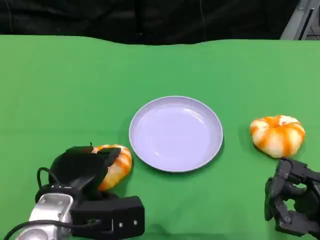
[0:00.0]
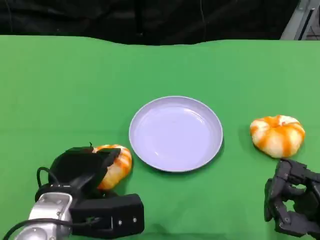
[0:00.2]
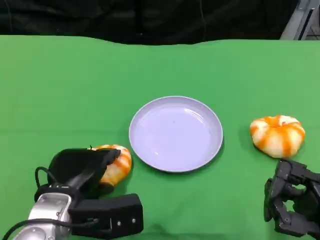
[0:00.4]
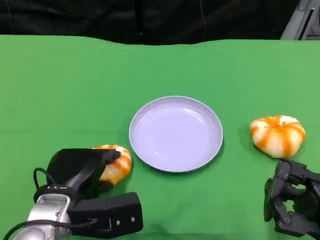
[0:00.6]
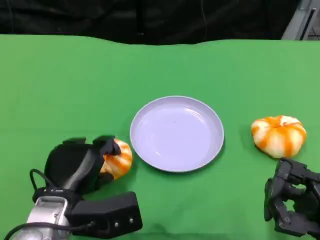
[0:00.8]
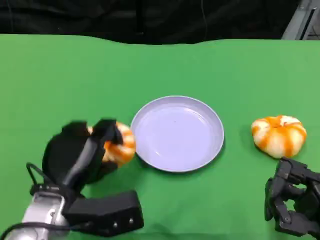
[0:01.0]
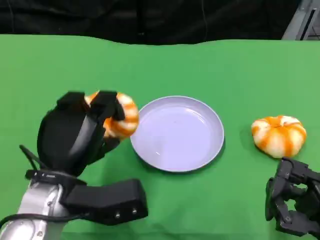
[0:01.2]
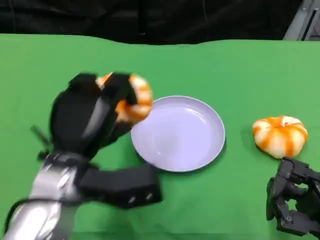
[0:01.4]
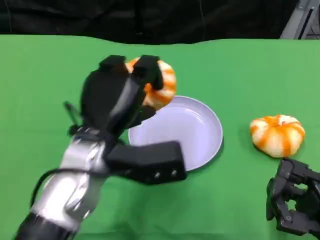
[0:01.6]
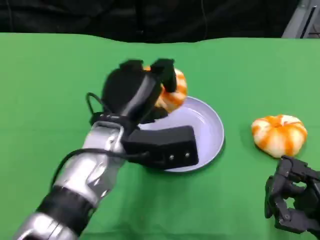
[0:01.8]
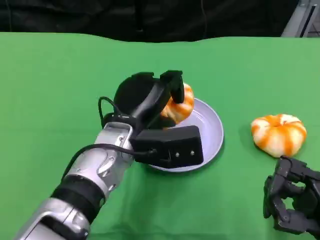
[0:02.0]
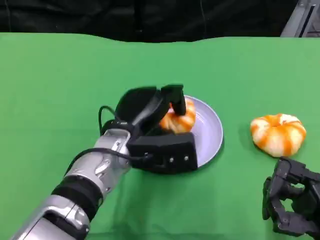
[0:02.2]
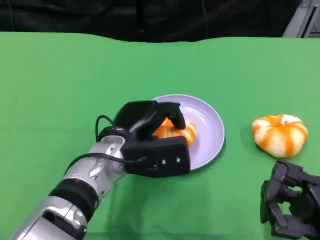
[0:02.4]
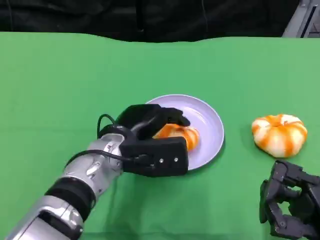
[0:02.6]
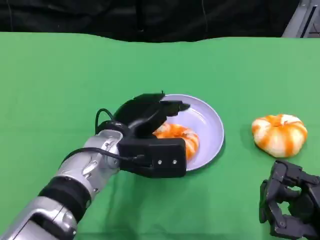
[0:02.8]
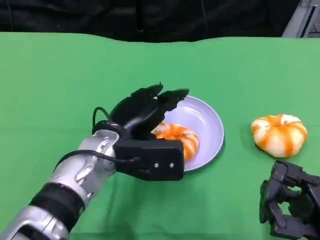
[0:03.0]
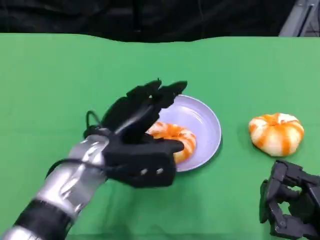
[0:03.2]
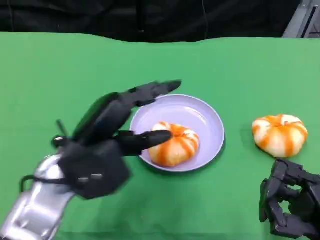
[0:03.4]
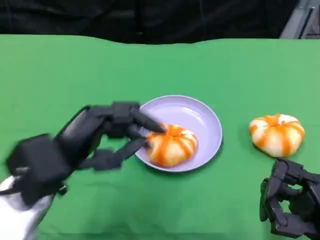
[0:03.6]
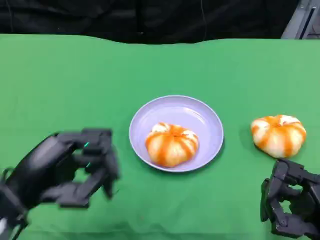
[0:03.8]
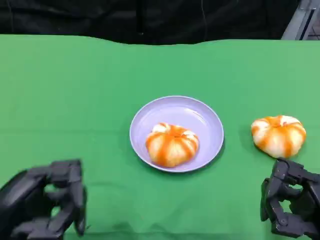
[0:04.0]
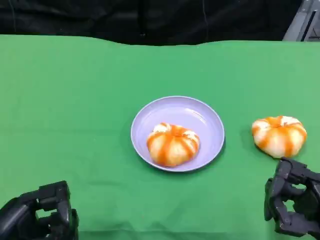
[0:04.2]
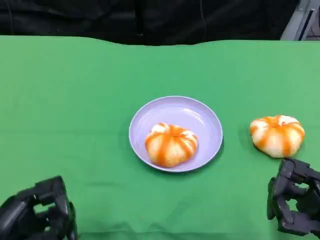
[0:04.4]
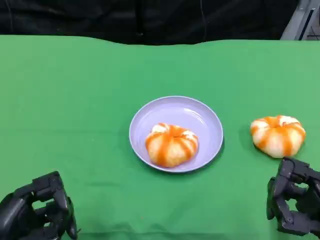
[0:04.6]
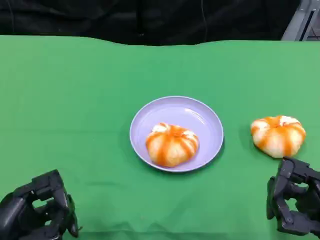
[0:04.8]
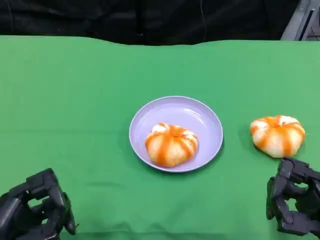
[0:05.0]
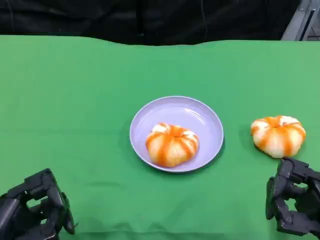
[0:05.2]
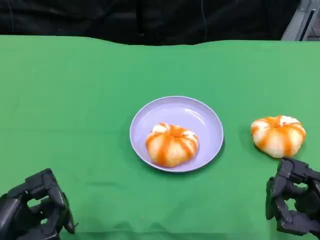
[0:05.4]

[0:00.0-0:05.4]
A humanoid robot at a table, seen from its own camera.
Task of the whole recording: Grasp the bread from the table and place it into the plate.
0:00.0 to 0:01.4: The left hand goes roughly 10 cm upward.
0:01.4 to 0:02.8: The left hand is displaced forward by roughly 5 cm.
0:02.8 to 0:04.0: The left hand goes approximately 25 cm to the left and backward.
0:04.0 to 0:05.4: The hands stay close to where they were, moving slightly.

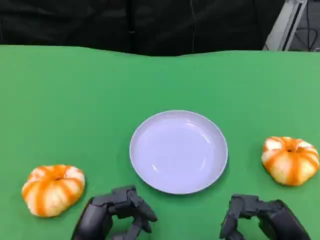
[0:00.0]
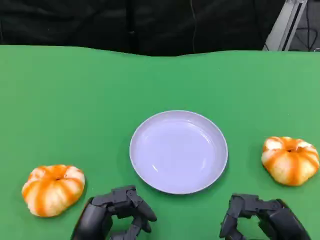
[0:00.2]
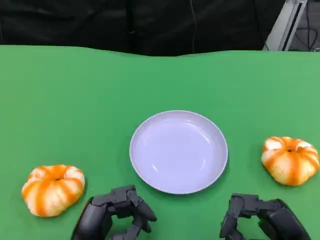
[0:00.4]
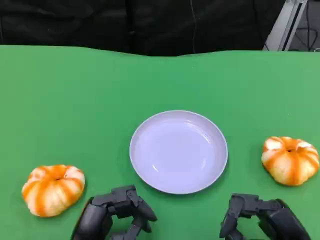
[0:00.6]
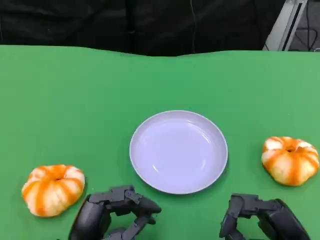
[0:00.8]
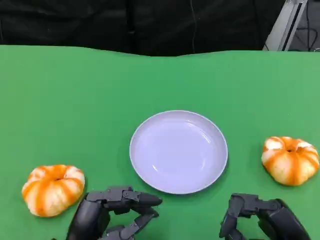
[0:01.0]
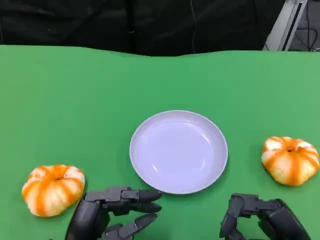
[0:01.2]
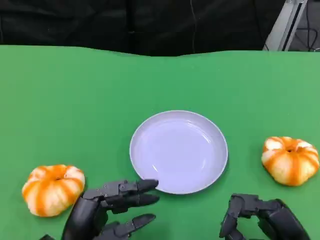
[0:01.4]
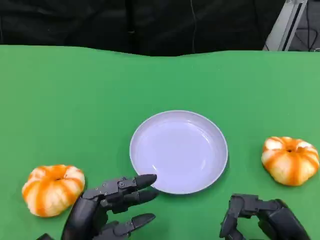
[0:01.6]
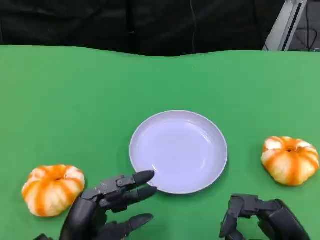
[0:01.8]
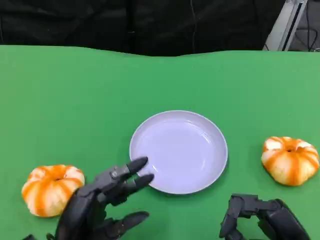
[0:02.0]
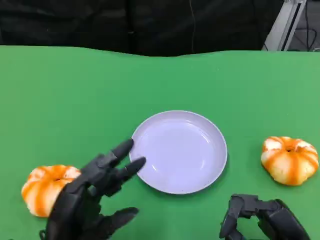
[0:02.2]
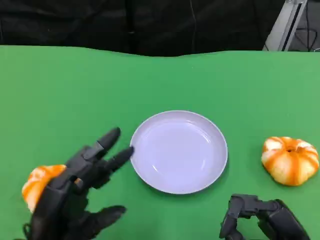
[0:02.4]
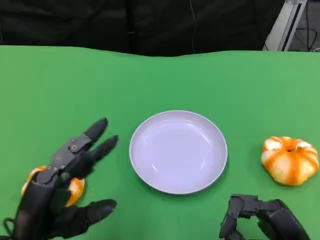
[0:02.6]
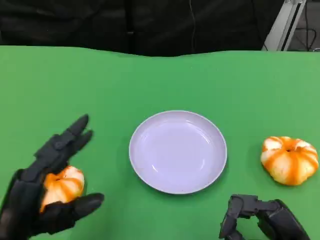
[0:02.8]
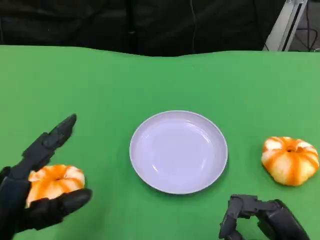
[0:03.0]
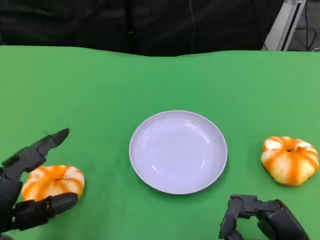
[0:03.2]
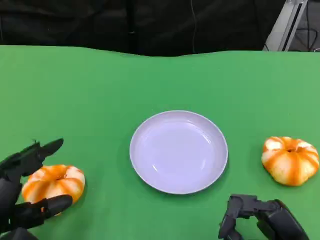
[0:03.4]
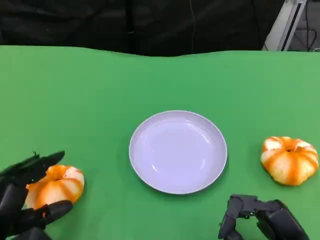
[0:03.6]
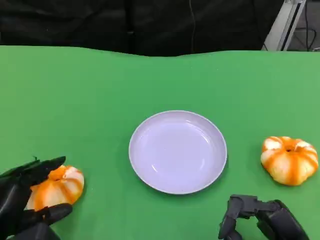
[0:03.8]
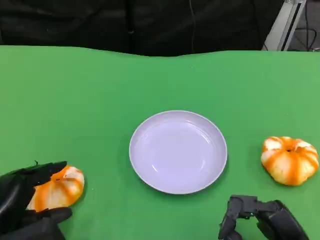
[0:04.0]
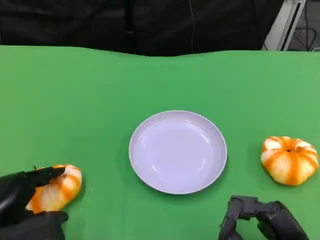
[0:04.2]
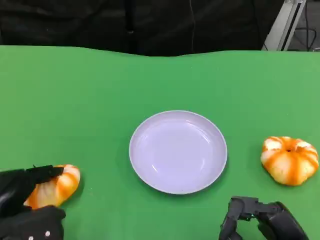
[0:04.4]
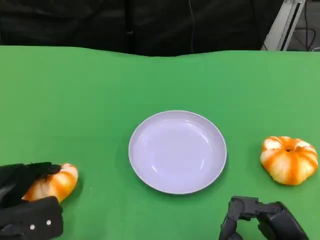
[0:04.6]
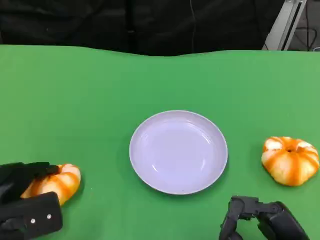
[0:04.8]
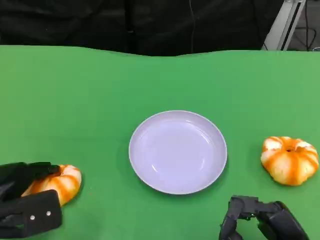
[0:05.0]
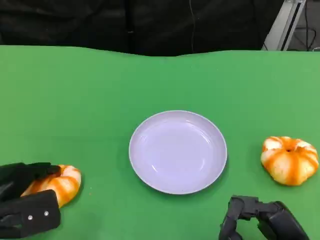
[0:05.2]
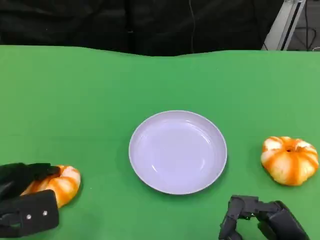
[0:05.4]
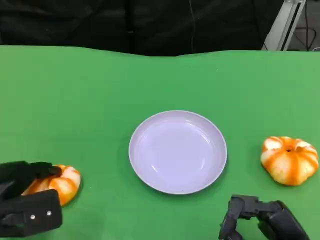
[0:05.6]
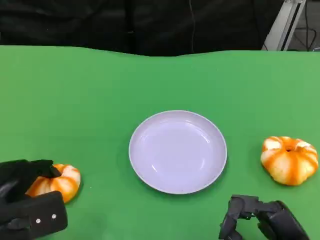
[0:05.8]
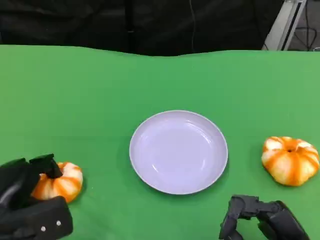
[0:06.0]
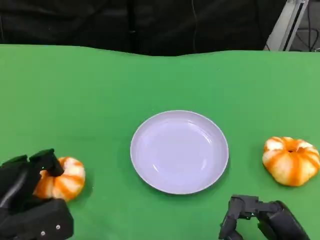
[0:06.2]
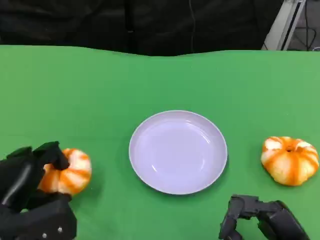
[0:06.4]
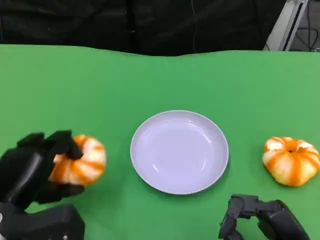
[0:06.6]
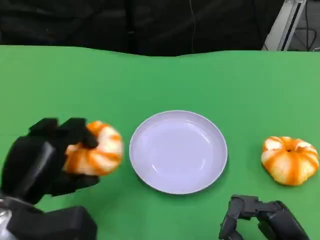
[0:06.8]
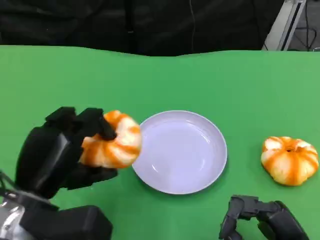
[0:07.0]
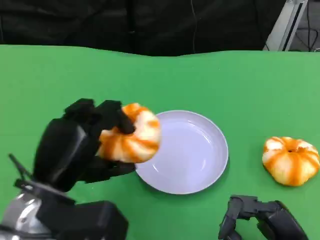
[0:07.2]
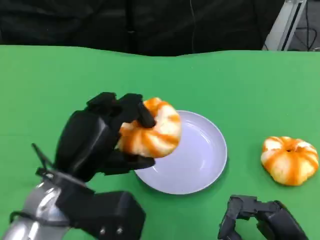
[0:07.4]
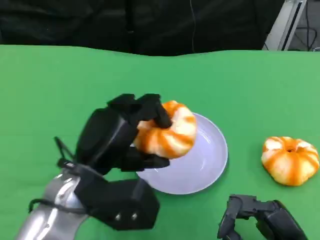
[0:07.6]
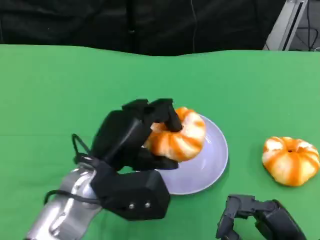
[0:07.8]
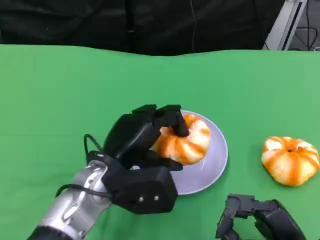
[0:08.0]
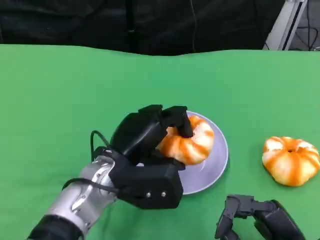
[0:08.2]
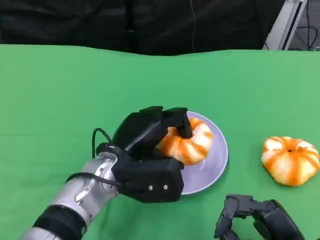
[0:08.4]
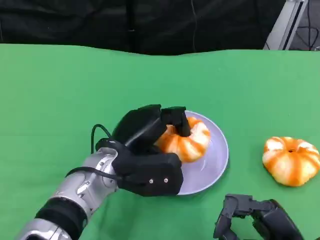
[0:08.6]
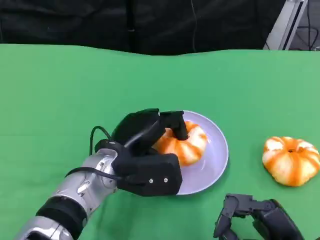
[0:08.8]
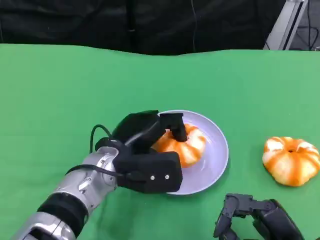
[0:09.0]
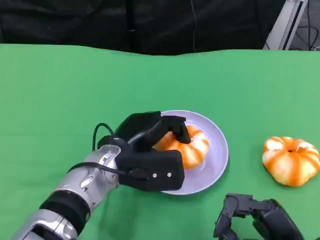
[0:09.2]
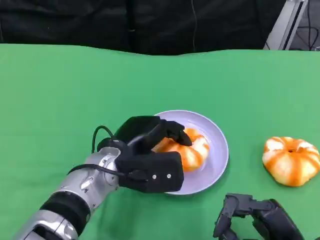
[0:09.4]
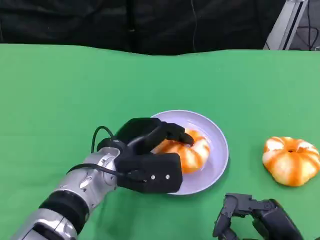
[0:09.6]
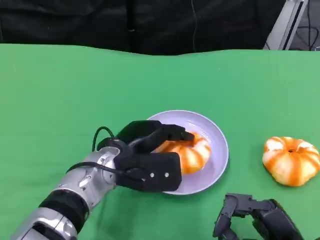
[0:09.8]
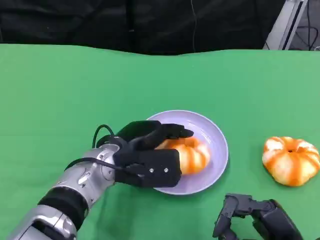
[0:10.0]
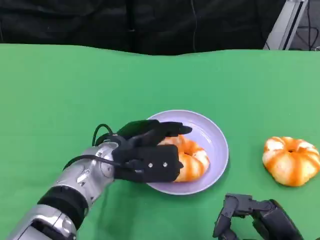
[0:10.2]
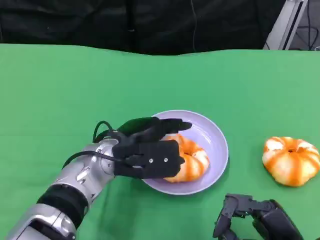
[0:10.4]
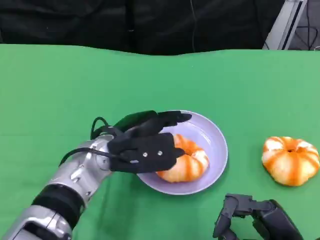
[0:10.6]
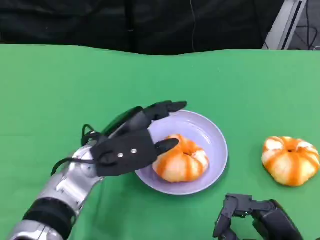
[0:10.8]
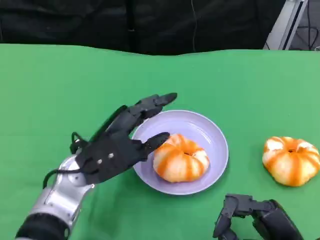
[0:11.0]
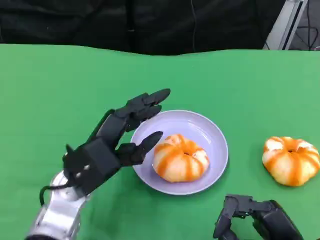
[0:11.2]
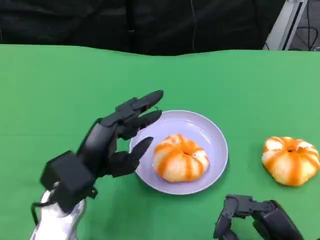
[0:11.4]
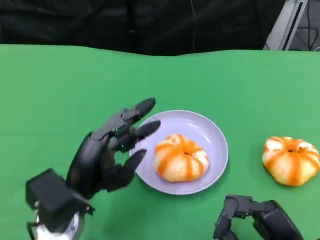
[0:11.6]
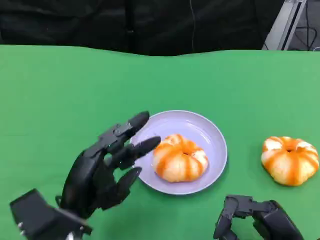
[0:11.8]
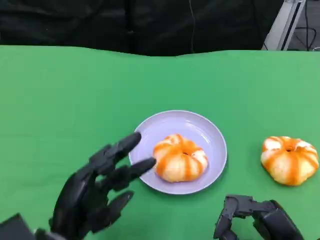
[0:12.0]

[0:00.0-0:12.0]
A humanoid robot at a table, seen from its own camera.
Task of the whole recording: Grasp the bread from the table and place it into the plate.
0:00.0 to 0:01.6: The hands stay close to where they were, moving slightly.
0:01.6 to 0:03.0: The left hand travels to the left and upward by about 10 cm.
0:03.0 to 0:04.4: The left hand shifts by approximately 5 cm.
0:04.4 to 0:06.0: There are only small adjustments of the hands.
0:06.0 to 0:07.6: The left hand shifts approximately 15 cm to the right and upward.
0:07.6 to 0:09.0: The left hand shifts some 5 cm forward.
0:09.0 to 0:10.4: The hands make only small movements.
0:10.4 to 0:12.0: The left hand goes about 15 cm backward and to the left.

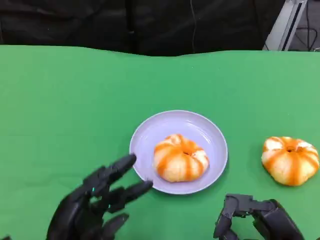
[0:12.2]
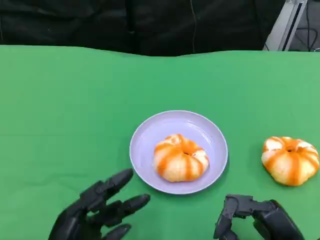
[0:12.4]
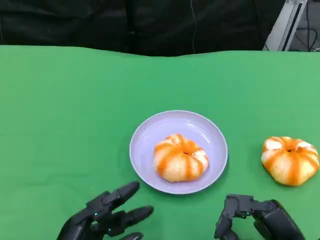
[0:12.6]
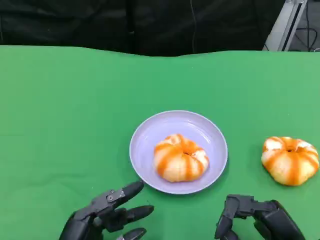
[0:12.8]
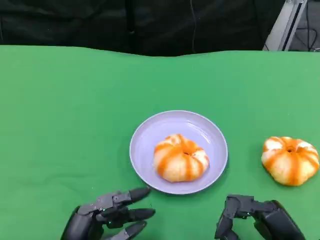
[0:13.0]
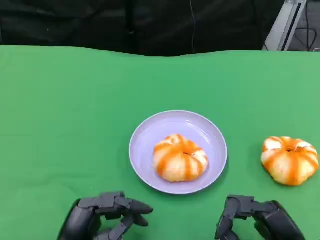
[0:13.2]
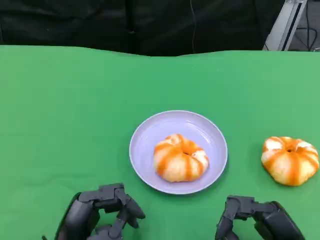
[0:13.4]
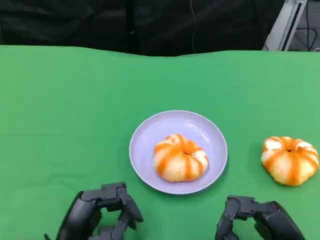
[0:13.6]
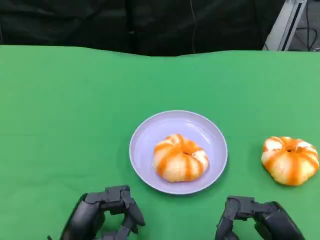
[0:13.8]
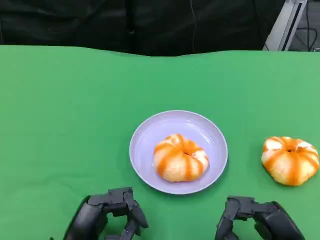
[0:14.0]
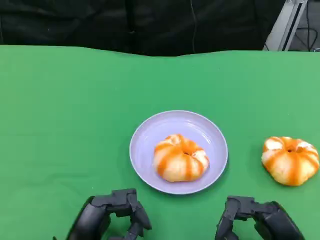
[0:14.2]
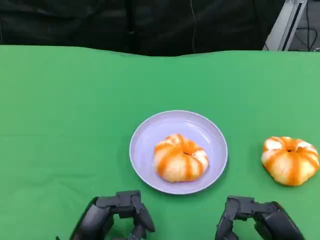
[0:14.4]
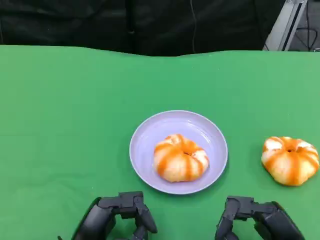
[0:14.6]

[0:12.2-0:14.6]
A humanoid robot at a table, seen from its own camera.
Task of the whole recording: Grasp the bread from the table and place it into the plate.
0:12.2 to 0:14.6: The hands stay close to where they were, moving slightly.

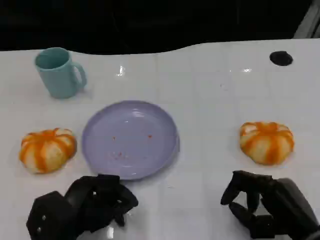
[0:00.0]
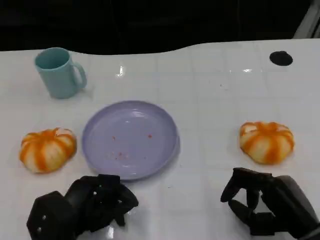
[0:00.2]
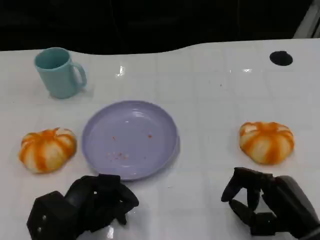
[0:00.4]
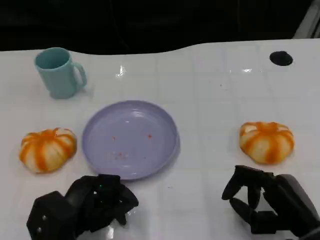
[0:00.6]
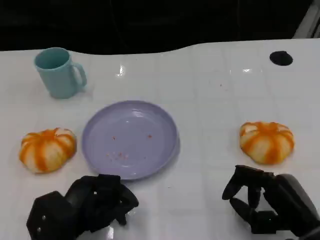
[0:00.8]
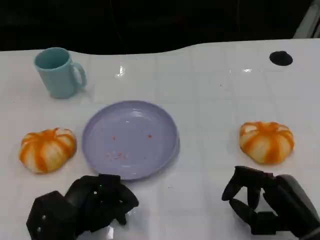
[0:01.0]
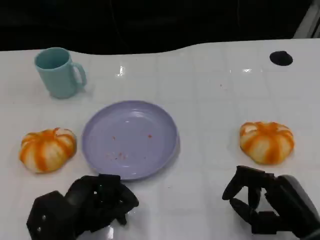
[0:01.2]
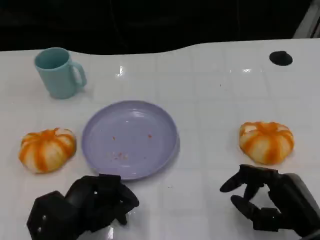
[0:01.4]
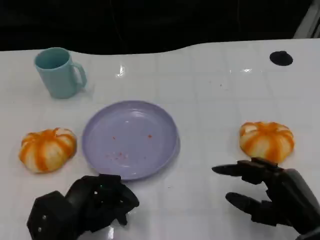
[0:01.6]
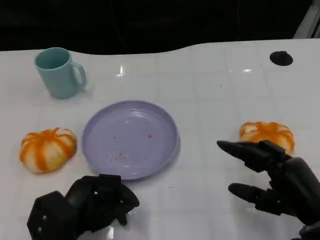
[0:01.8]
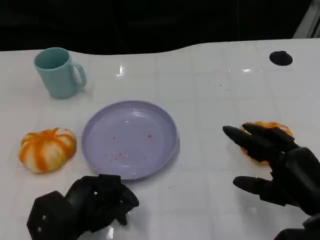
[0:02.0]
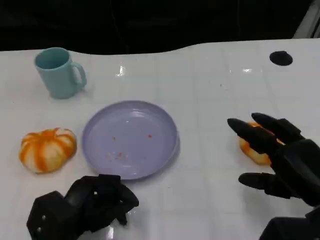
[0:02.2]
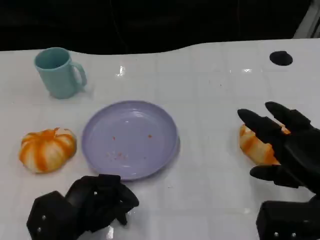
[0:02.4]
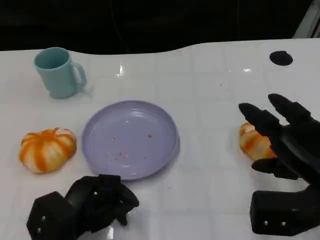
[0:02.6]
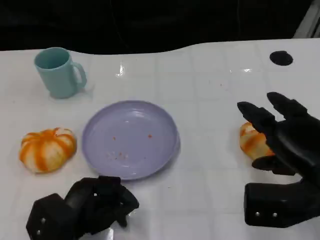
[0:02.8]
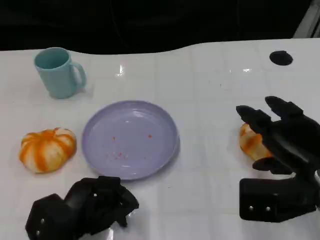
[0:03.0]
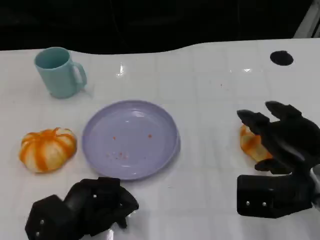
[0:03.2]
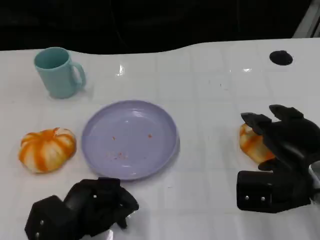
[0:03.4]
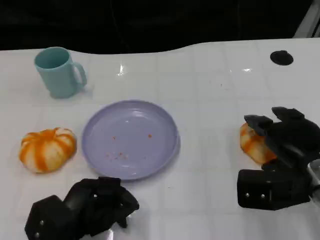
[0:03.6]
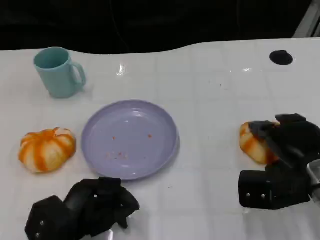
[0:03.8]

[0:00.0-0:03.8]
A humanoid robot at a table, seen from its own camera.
Task of the whole recording: Grasp the bread from the table and place it into the plate.
0:00.0 to 0:01.2: Both hands stay about where they are.
0:01.2 to 0:02.6: The right hand goes some 10 cm upward.
0:02.6 to 0:03.8: The right hand moves about 5 cm.
